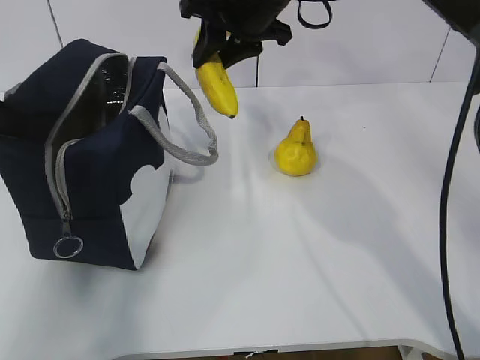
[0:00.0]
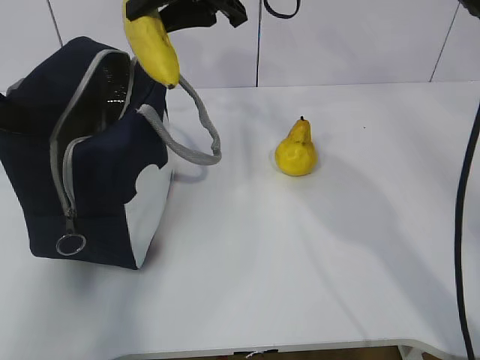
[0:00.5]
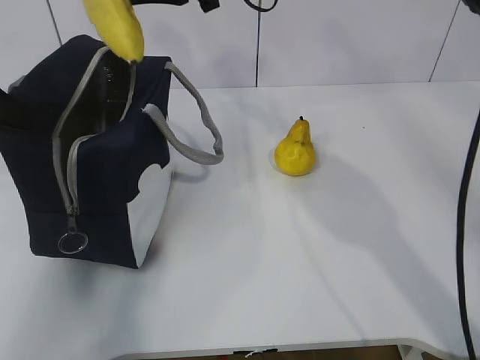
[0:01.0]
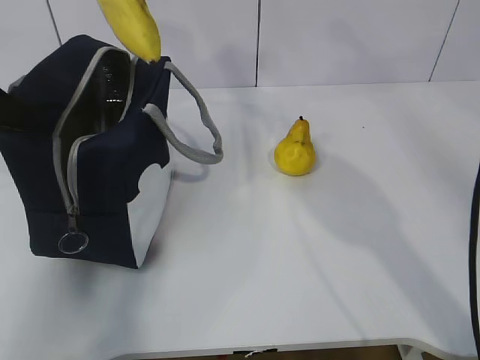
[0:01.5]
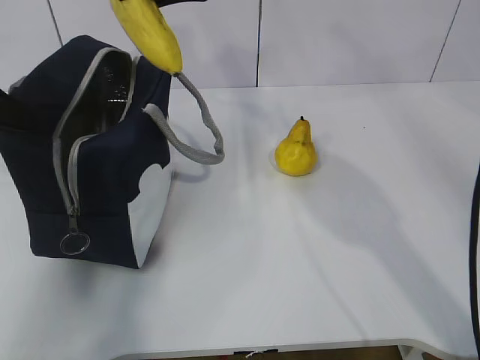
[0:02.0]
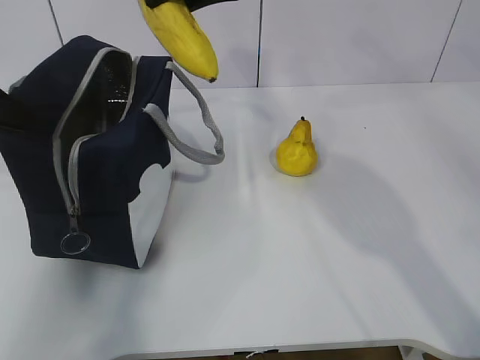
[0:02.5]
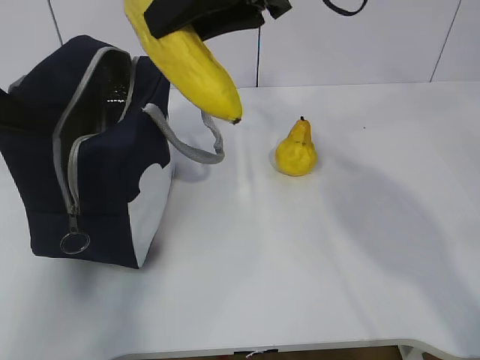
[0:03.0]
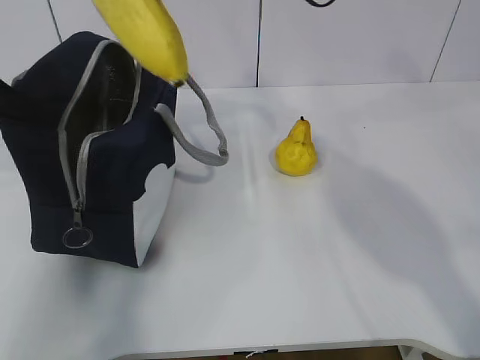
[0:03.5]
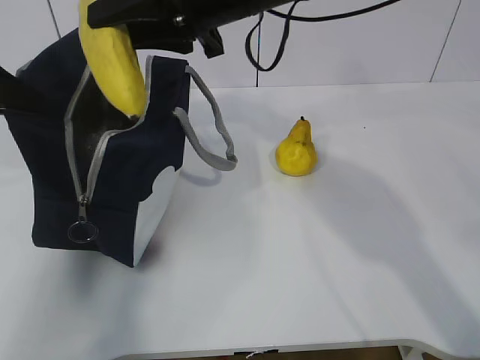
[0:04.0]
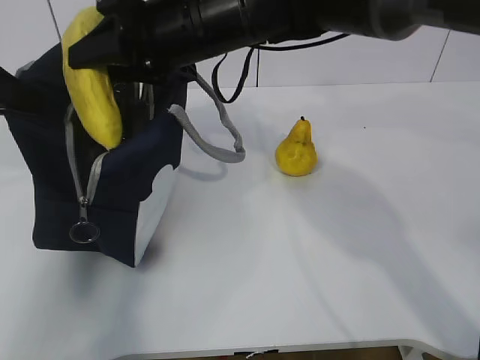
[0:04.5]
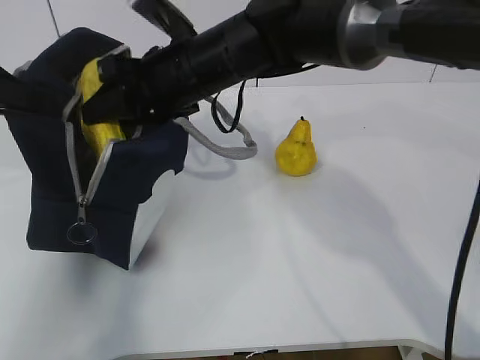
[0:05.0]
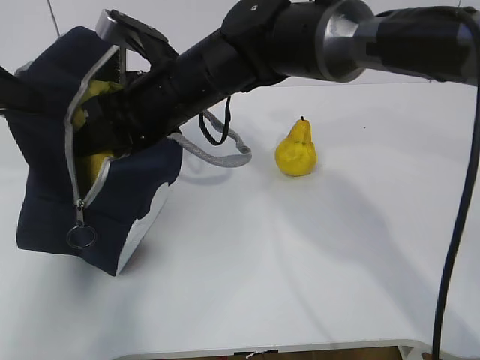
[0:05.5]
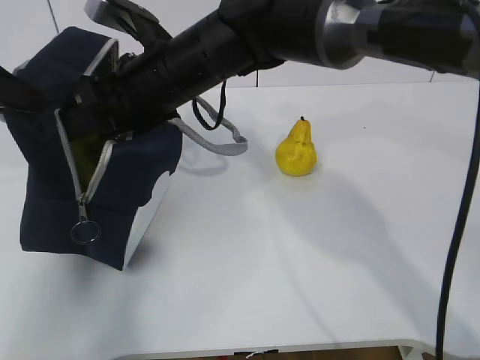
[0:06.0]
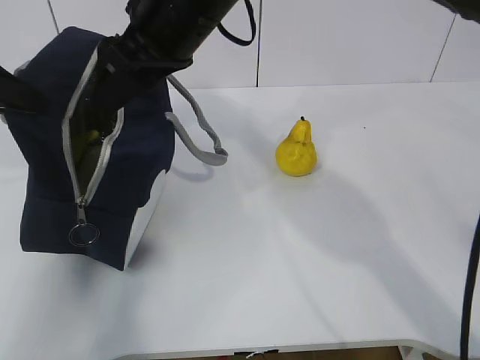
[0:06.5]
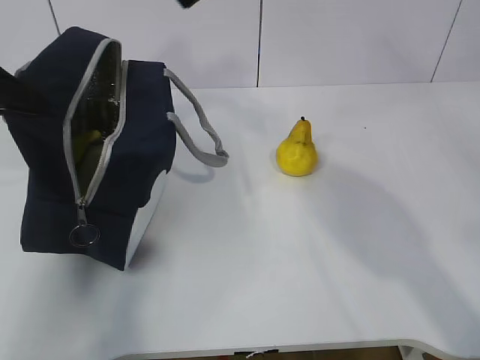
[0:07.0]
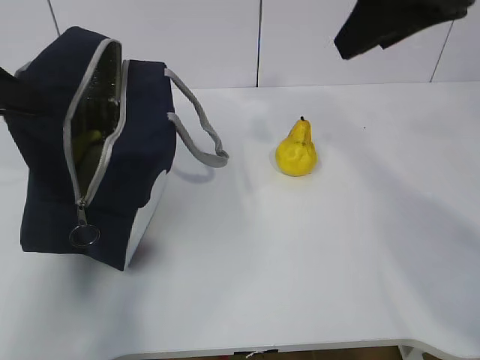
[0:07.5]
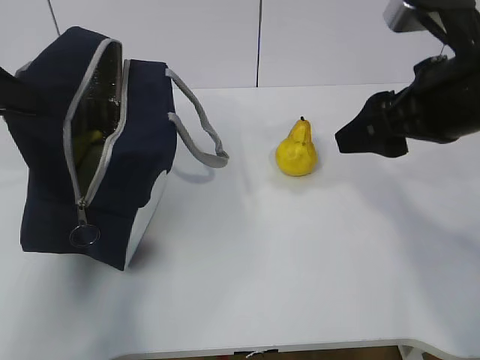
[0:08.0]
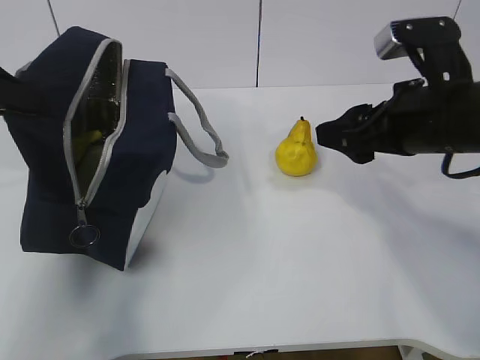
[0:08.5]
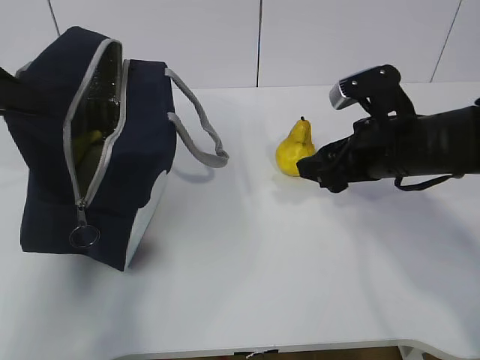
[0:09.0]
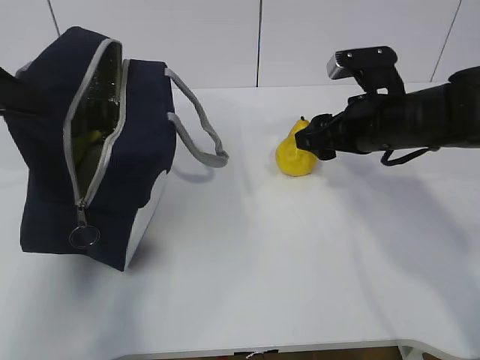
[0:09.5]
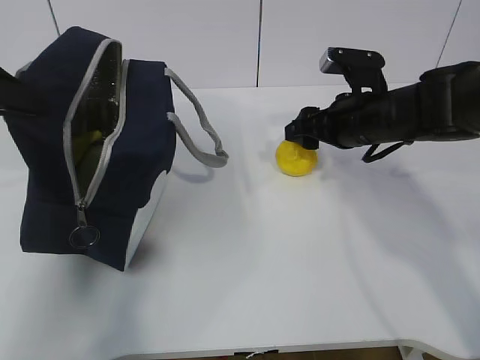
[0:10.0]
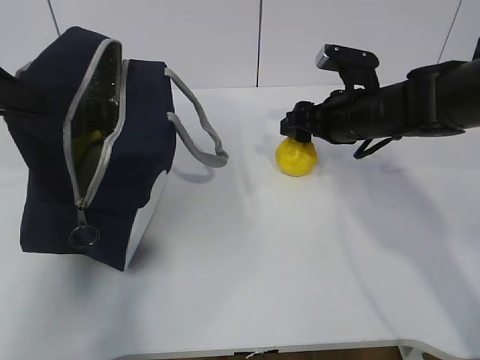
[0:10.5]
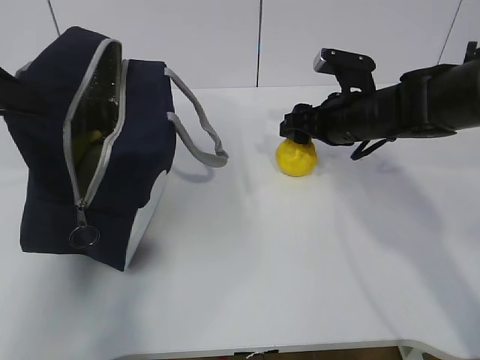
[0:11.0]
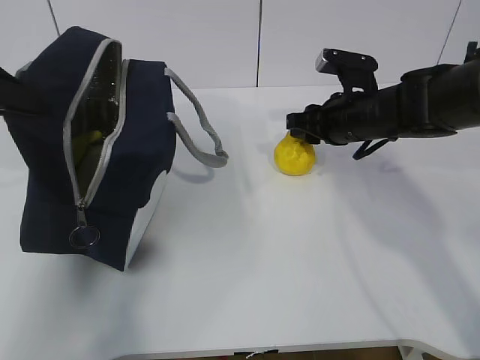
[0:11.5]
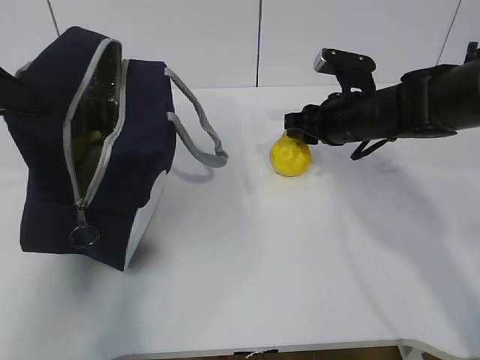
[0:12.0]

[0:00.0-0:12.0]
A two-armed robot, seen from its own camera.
Step, 0.5 to 5.0 s: Grab the pear with your right hand.
Step, 8.0 to 11.5 s: Grab the lunch bag with your right hand.
0.0 to 2.0 s: The right gripper goes approximately 5 cm upward.
4.0 to 6.0 s: The right gripper travels downward and to the left by about 10 cm, and opens up.
6.0 to 8.0 s: The right gripper shifts some 25 cm to the right and backward.
8.0 to 10.0 s: The right gripper moves forward and downward, roughly 15 cm.
10.0 to 12.0 s: The right gripper closes its fingers.

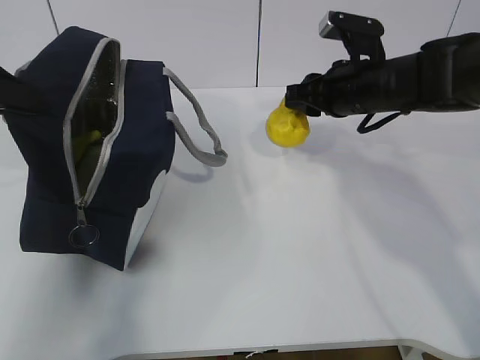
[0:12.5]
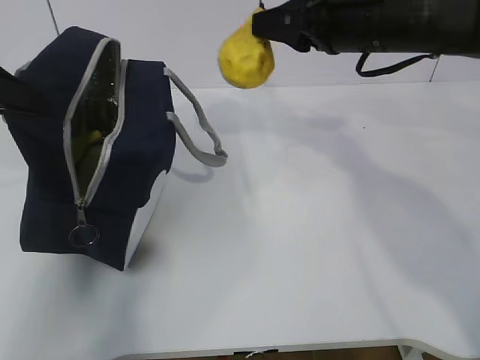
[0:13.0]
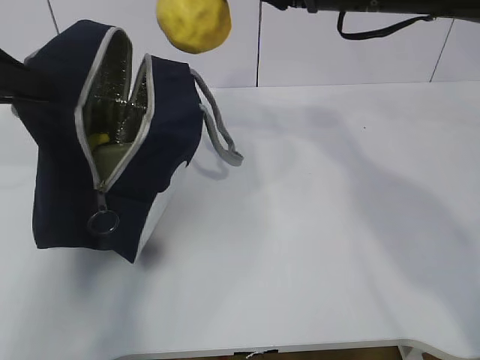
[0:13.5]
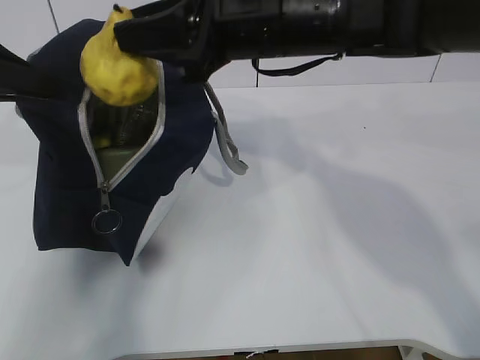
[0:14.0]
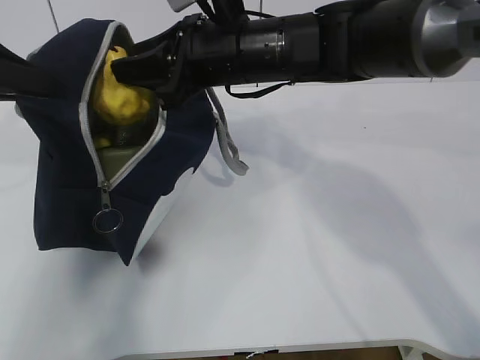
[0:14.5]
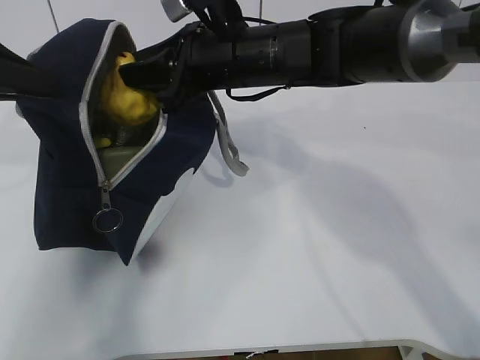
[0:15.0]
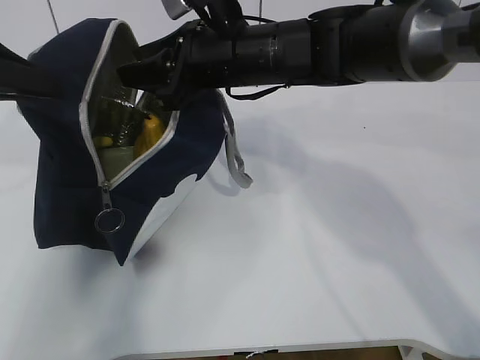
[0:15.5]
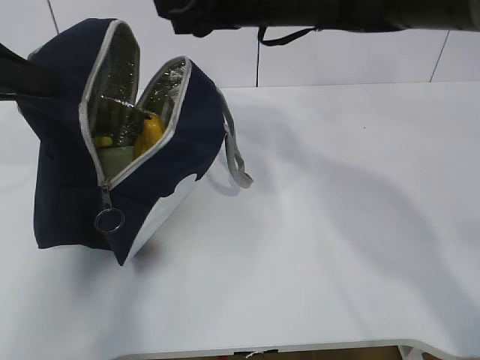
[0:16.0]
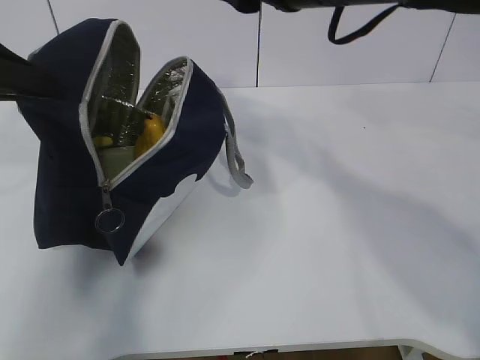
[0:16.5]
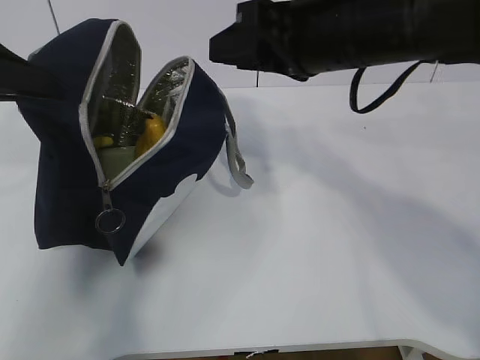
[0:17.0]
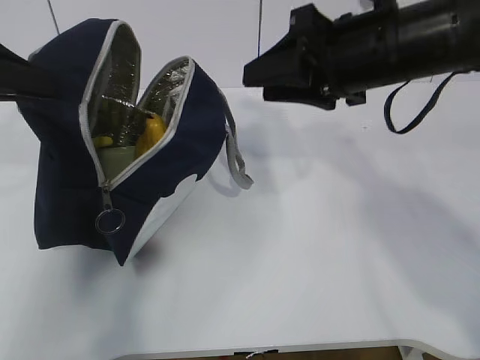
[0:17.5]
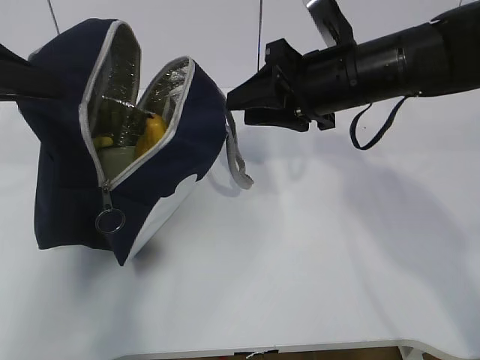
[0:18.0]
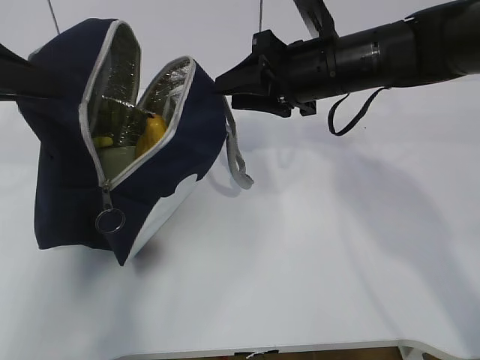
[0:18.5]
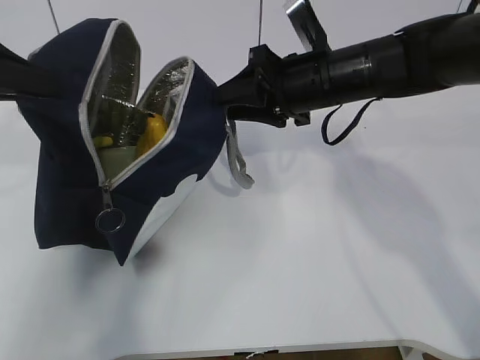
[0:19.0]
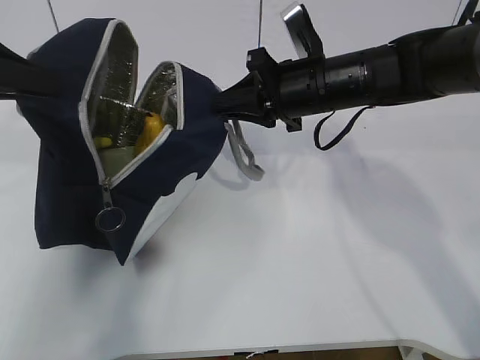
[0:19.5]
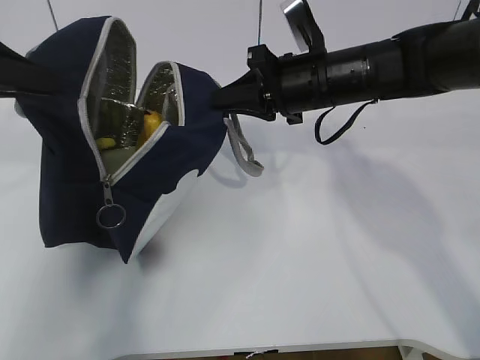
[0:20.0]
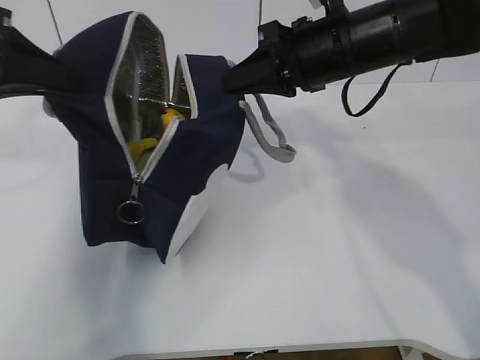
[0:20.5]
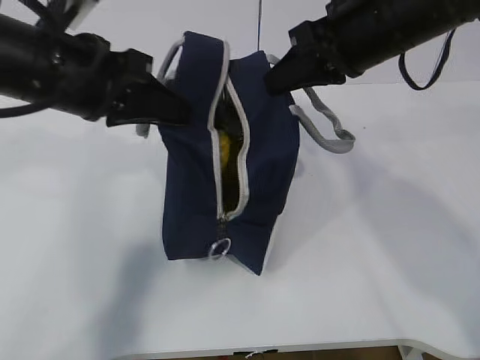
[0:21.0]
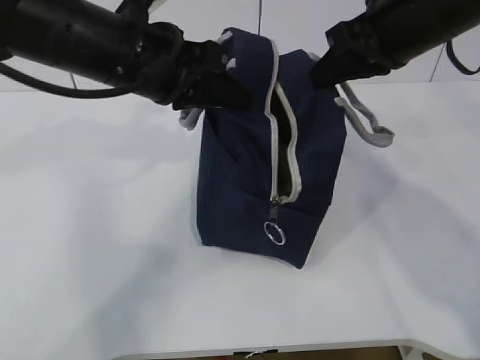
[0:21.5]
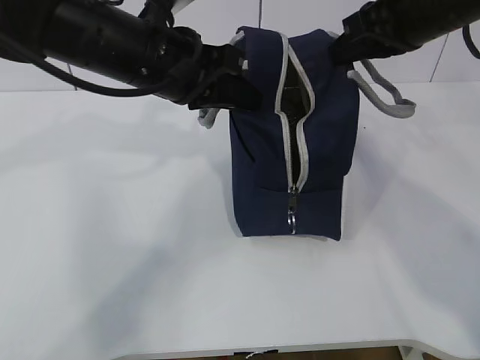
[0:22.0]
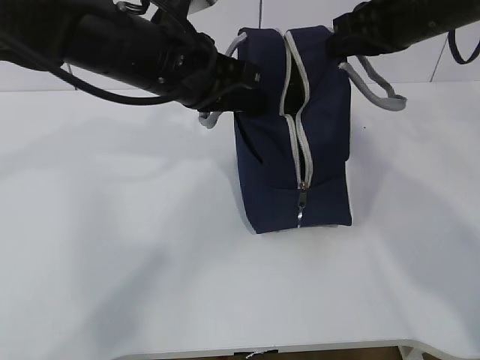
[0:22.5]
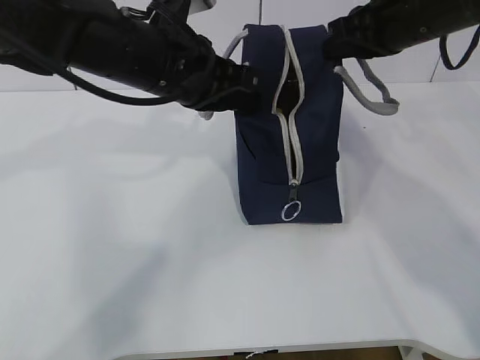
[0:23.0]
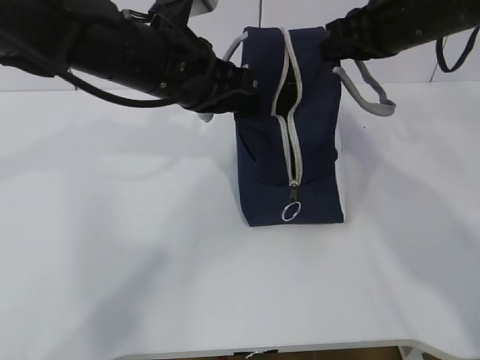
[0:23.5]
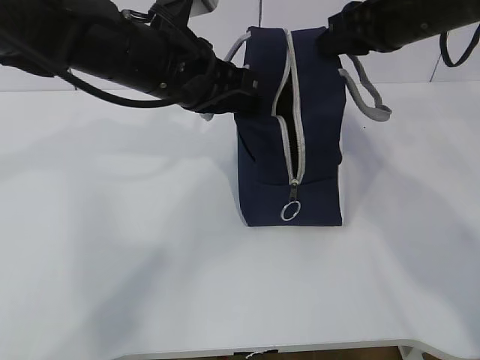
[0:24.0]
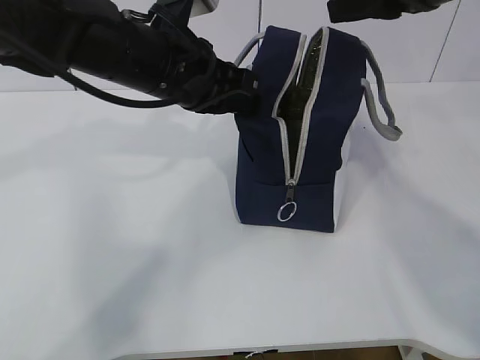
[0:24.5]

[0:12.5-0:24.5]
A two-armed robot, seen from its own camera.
Step, 12.5 to 15.0 s: Move the lunch bag to the right.
12.5 to 14.5 s: The right gripper travels to the left by approximately 15 cm.
14.5 to 16.5 s: The right gripper is displaced upward, to the right and backward by roughly 10 cm.
16.5 to 18.5 s: The right gripper is displaced downward and forward by some 15 cm.
18.5 to 20.5 s: The right gripper closes its fingers.
20.5 to 22.5 s: The left gripper travels to the right by approximately 20 cm. The right gripper goes some 5 cm to the right.
22.5 to 24.5 s: The right gripper goes roughly 5 cm upward, and opens its fingers.

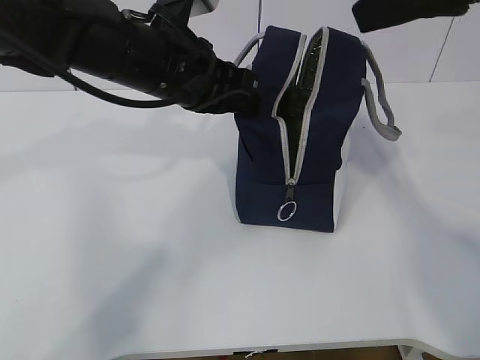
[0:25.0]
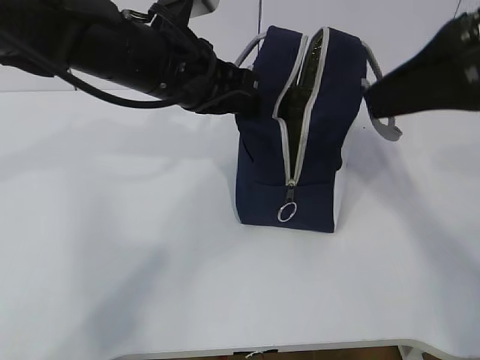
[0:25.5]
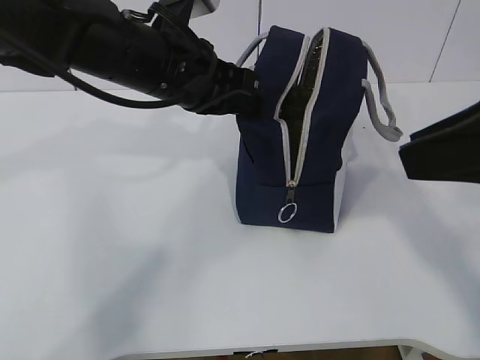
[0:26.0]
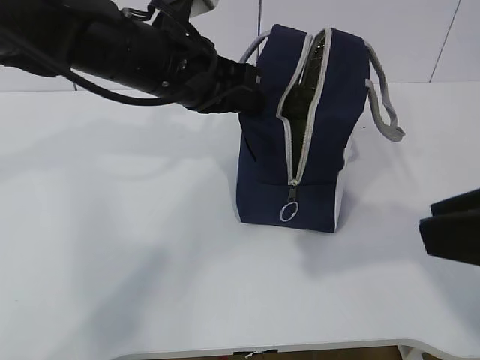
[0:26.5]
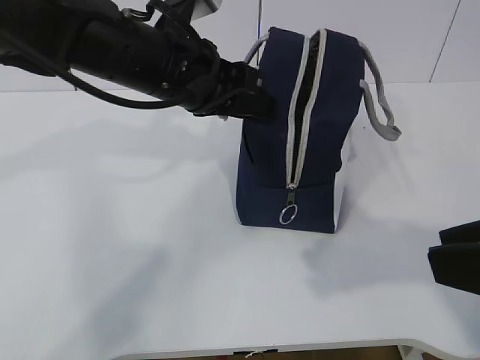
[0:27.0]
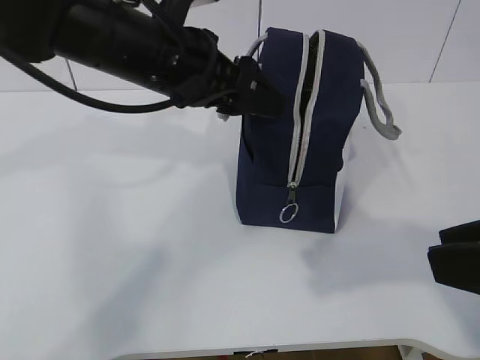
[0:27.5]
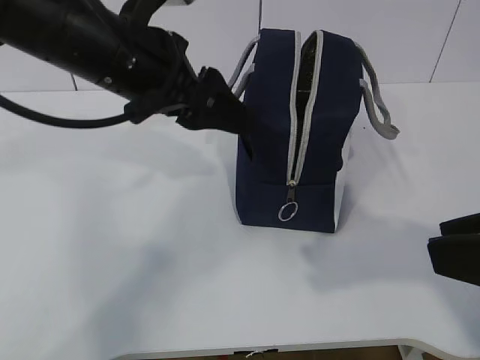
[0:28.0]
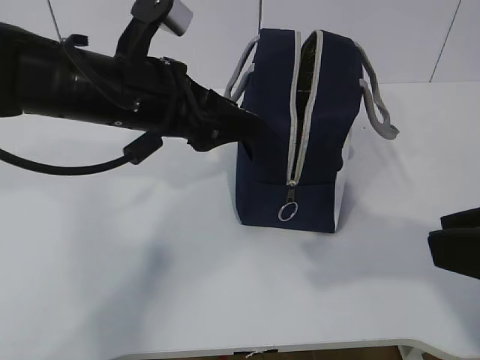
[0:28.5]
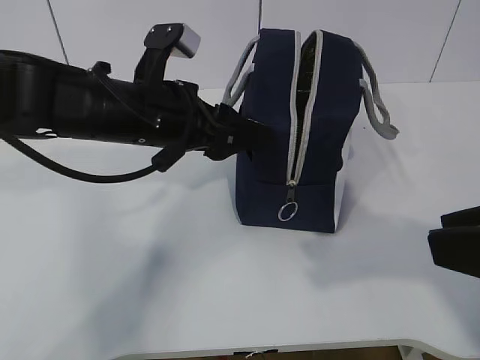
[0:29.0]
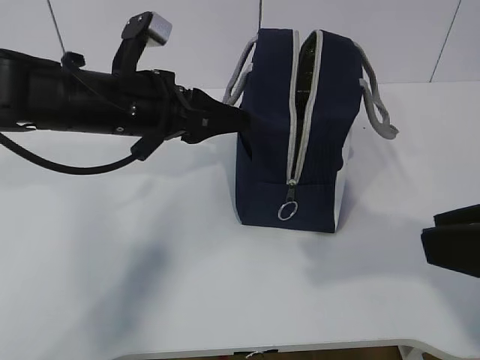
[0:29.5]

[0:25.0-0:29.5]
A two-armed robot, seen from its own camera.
25.0 to 27.0 s: The left gripper opens. Meanwhile the right gripper heads backward and downward, covering some 20 cm.
27.0 to 29.5 s: The left gripper changes place by some 5 cm.
